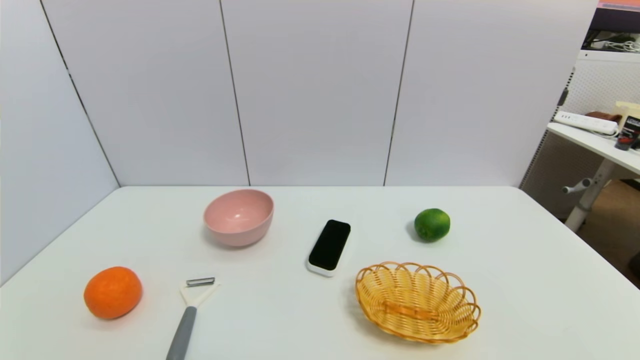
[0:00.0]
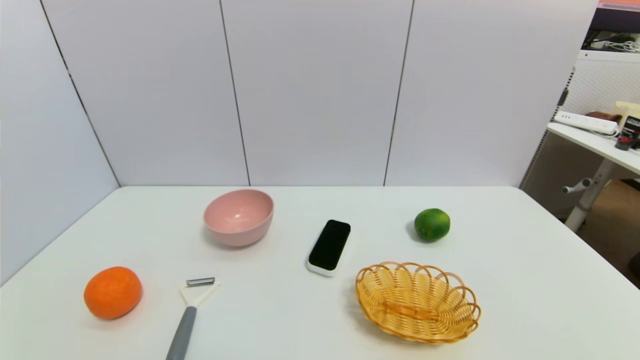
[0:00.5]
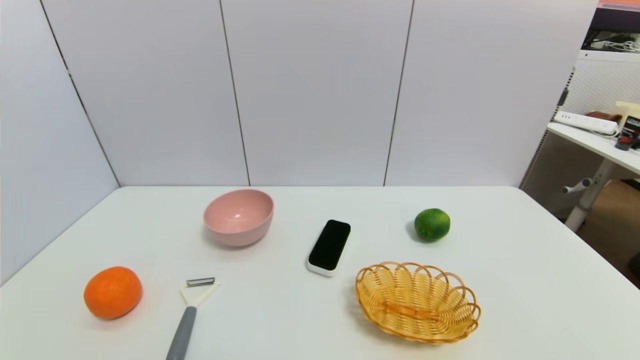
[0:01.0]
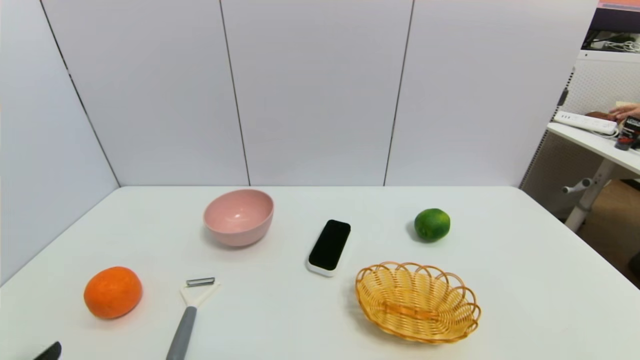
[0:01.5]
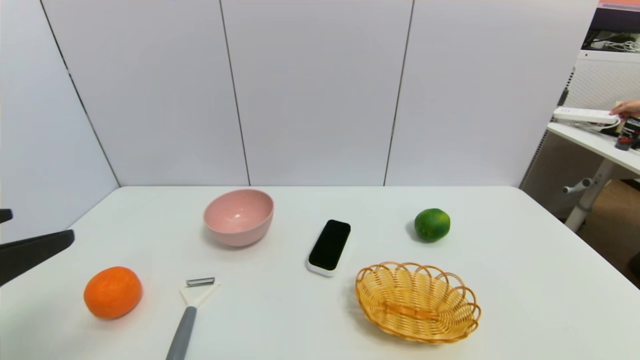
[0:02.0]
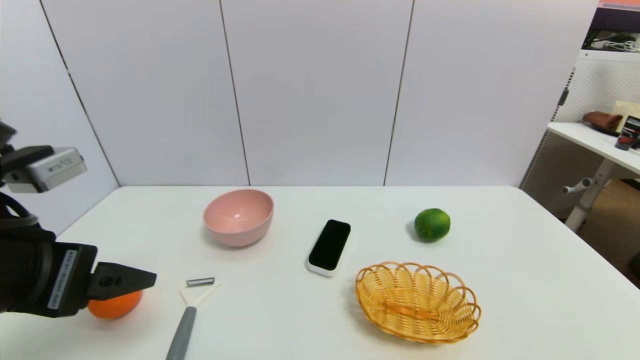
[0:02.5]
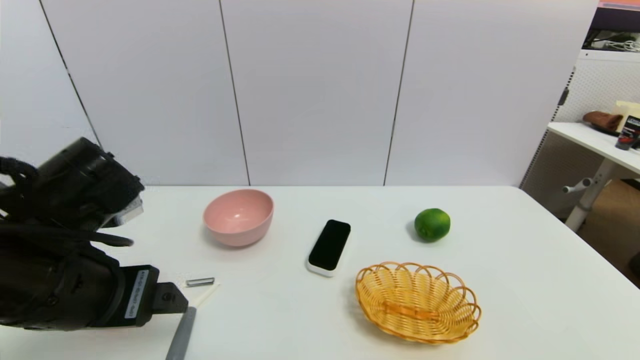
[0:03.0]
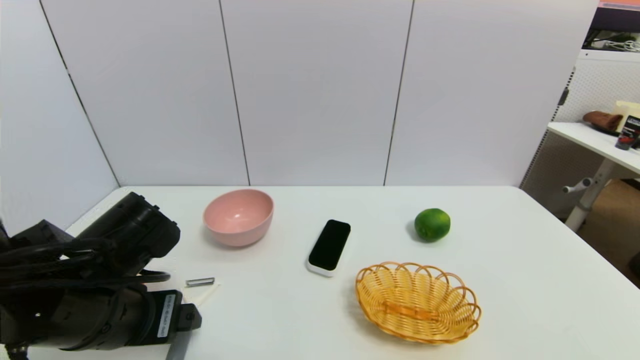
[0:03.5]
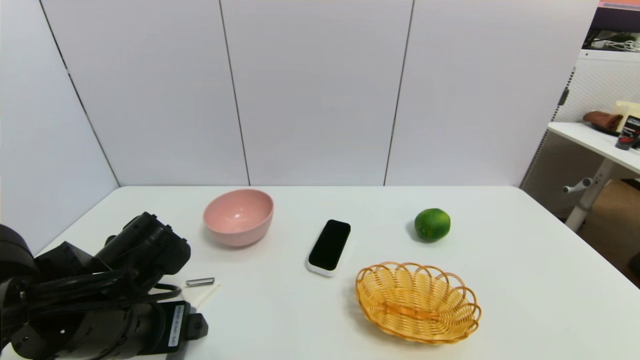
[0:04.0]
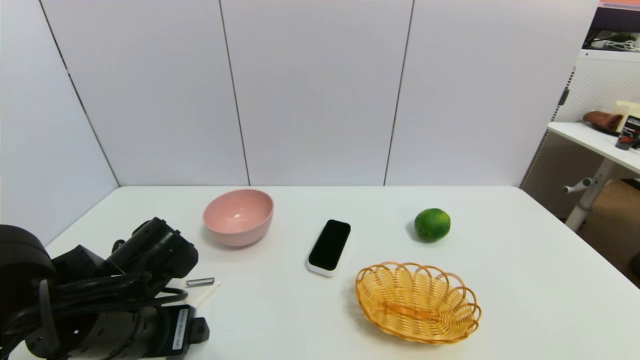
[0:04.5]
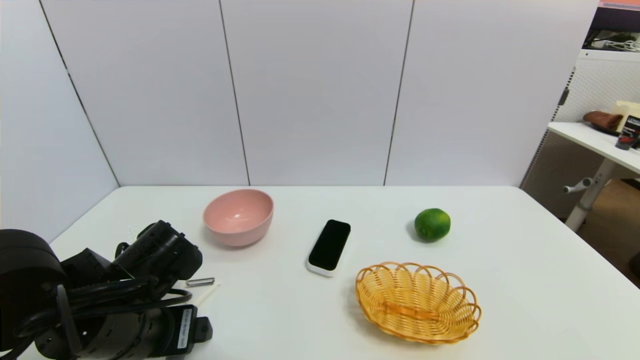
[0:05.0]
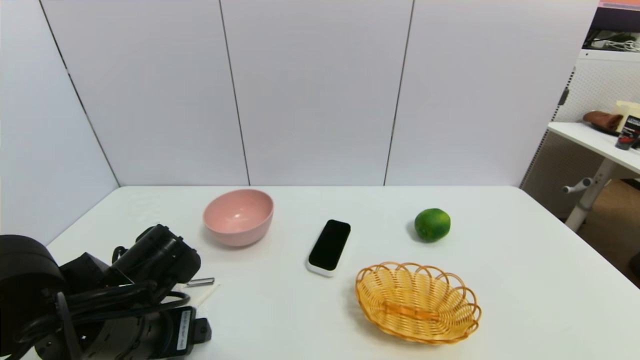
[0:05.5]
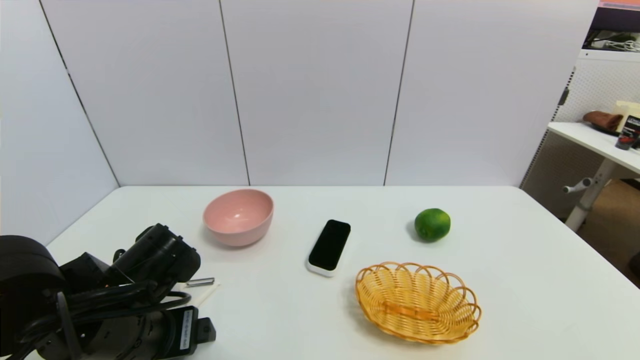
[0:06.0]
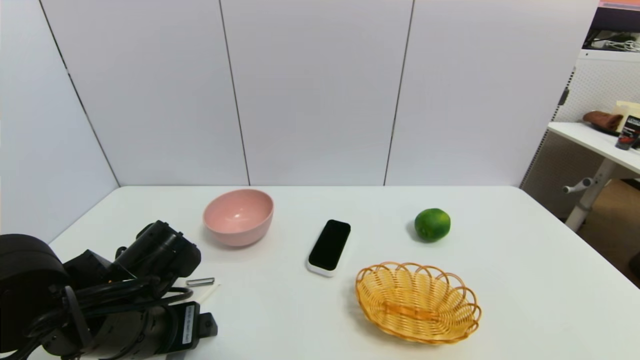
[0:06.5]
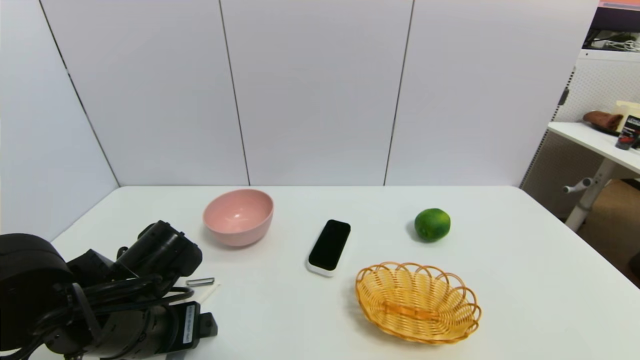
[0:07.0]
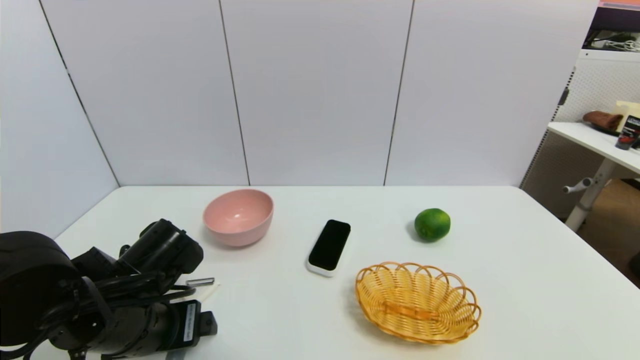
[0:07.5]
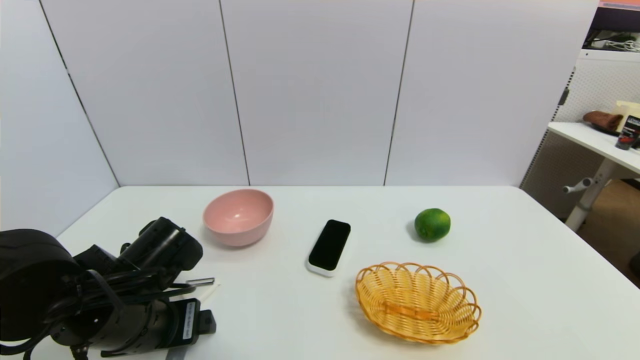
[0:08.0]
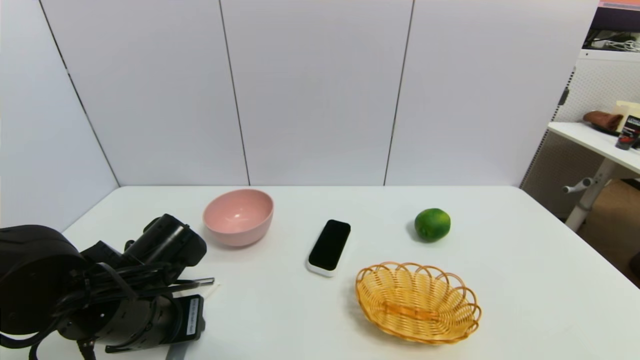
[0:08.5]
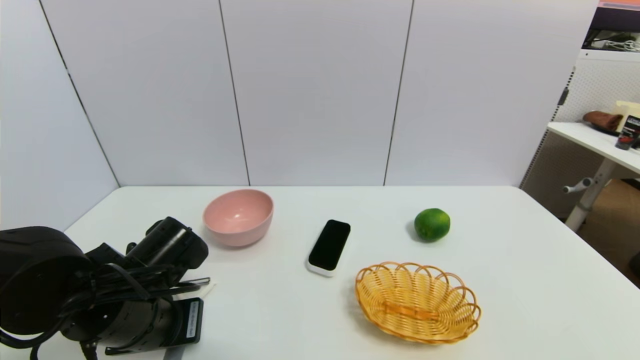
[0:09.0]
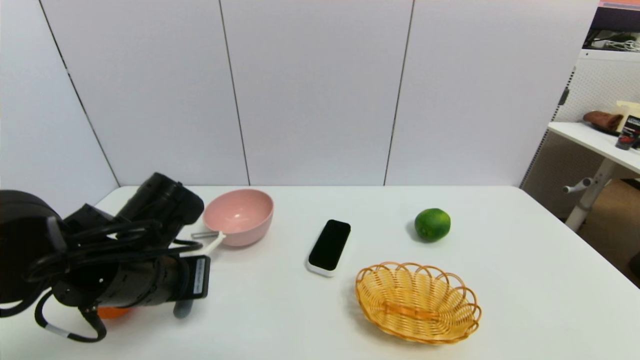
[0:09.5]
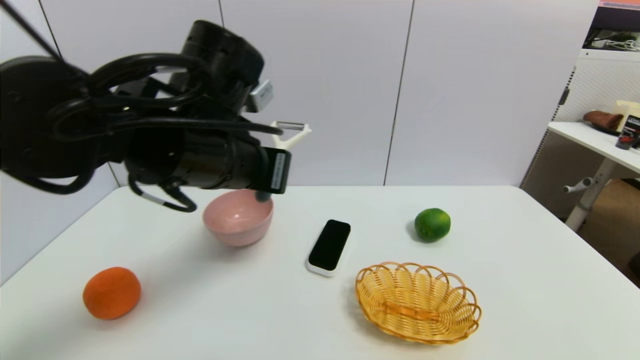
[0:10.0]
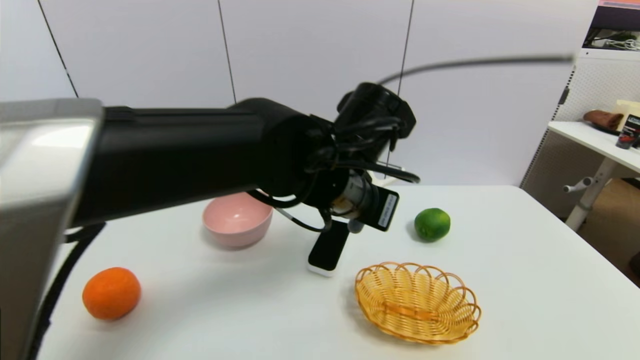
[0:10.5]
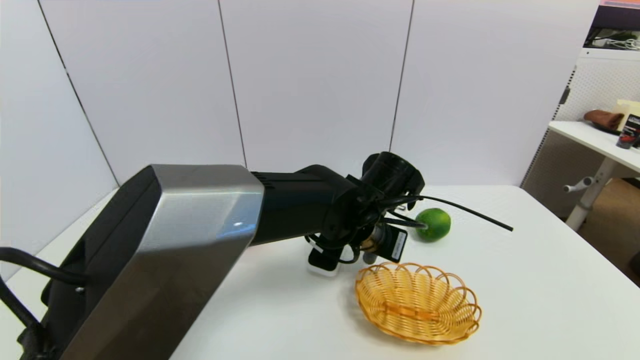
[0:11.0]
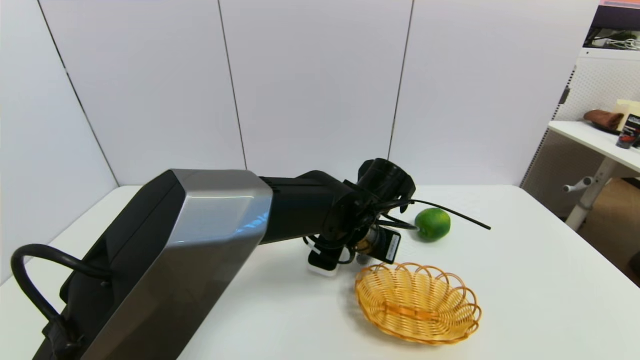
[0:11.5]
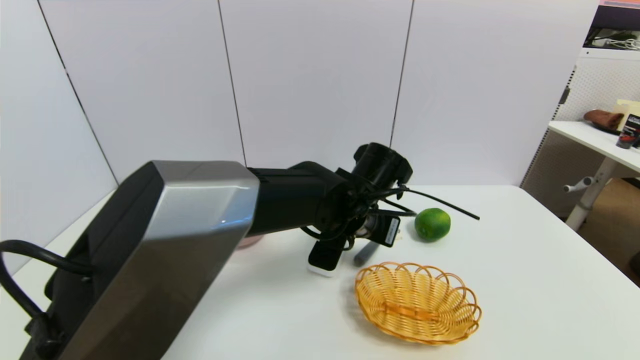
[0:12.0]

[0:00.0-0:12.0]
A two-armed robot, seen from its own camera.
Step, 0:01.5 to 0:09.0: Grasp the peeler with left gripper.
Step, 0:09.5 to 0:11.5: Place the peeler on the table with left gripper.
0:00.0 to 0:02.0: The left gripper moves upward and forward, about 20 cm.
0:02.0 to 0:04.0: The left gripper shifts about 20 cm downward, forward and to the right.
0:04.0 to 0:08.0: The grippers make only small movements.
0:08.0 to 0:10.0: The left gripper travels upward and to the right by about 20 cm, and closes.
0:10.0 to 0:12.0: The left gripper goes about 20 cm to the right, downward and forward, and opens its fingers.

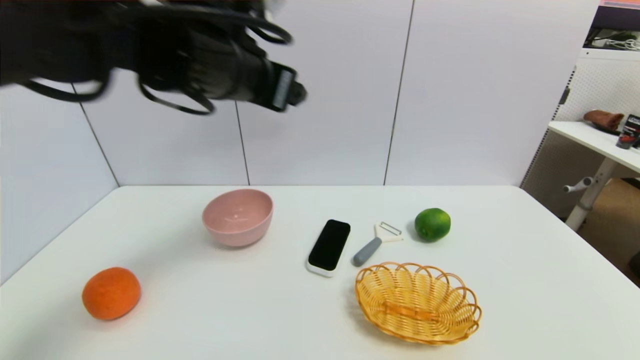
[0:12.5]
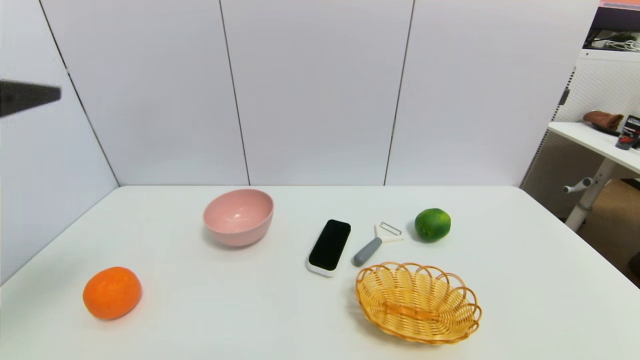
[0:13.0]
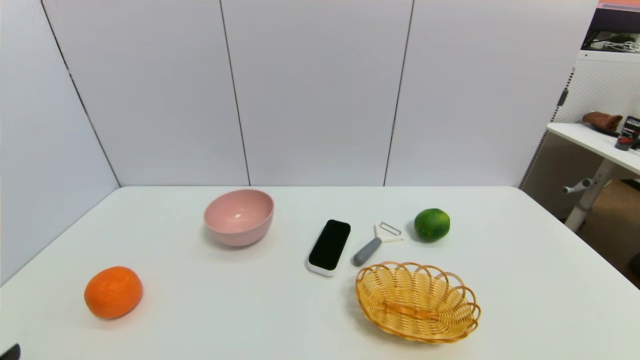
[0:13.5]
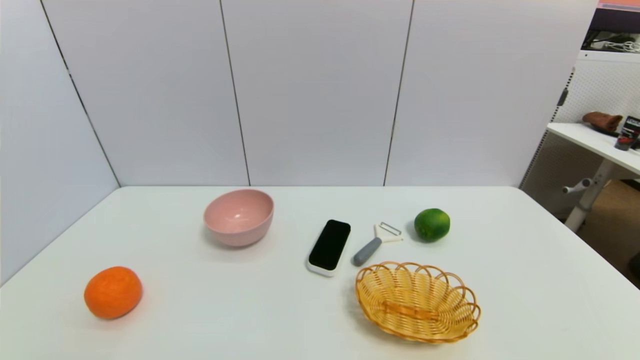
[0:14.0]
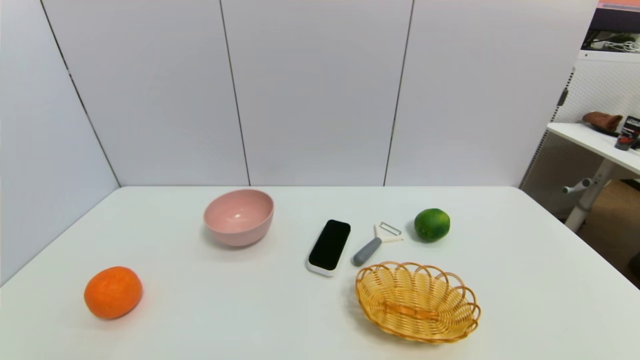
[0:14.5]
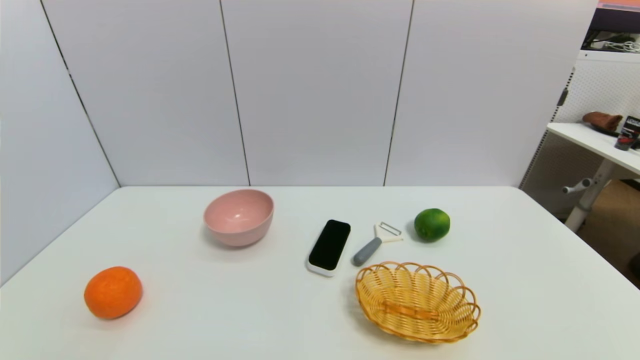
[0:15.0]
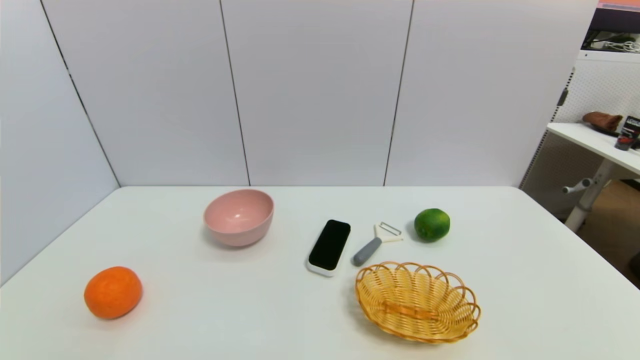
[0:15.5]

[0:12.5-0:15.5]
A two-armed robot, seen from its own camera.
0:12.5 to 0:14.0: The left gripper moves backward, downward and to the left, approximately 40 cm.

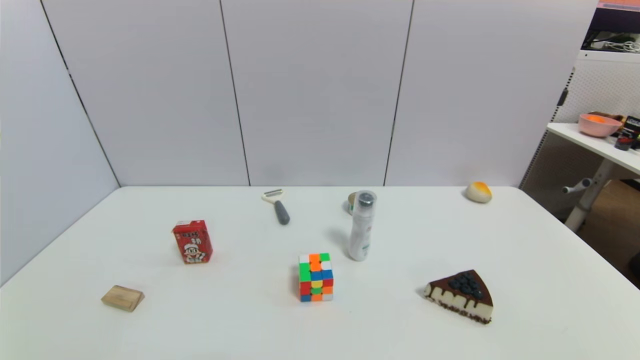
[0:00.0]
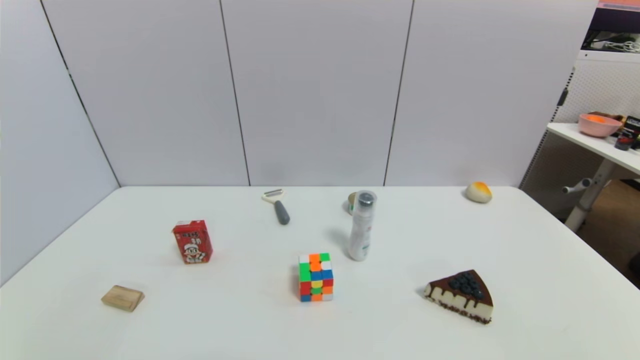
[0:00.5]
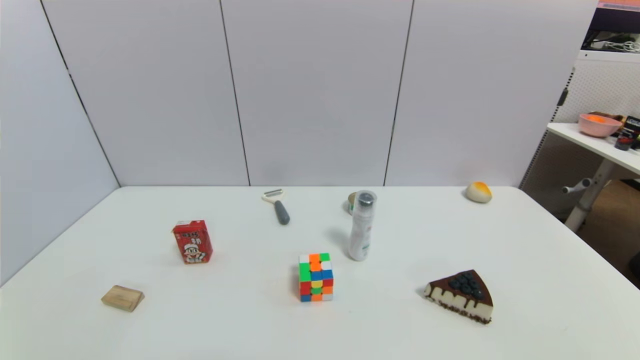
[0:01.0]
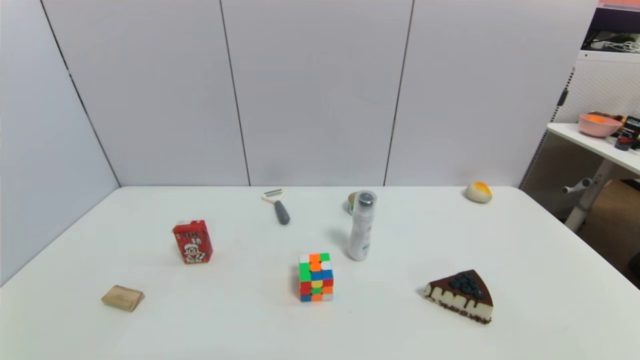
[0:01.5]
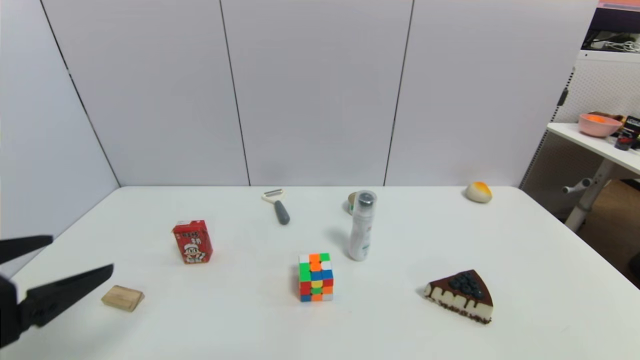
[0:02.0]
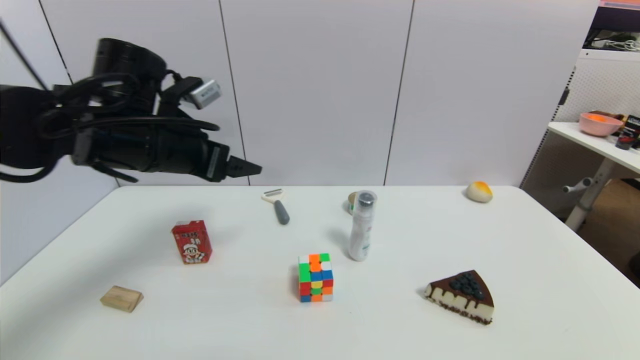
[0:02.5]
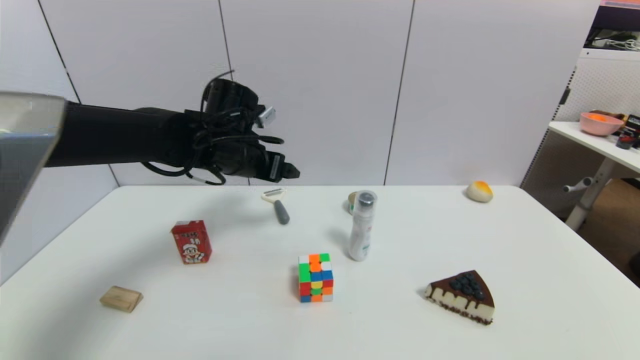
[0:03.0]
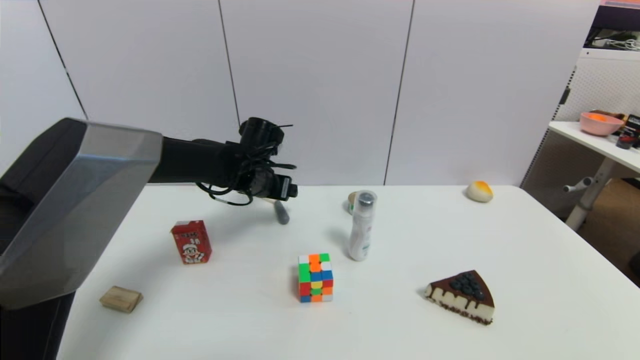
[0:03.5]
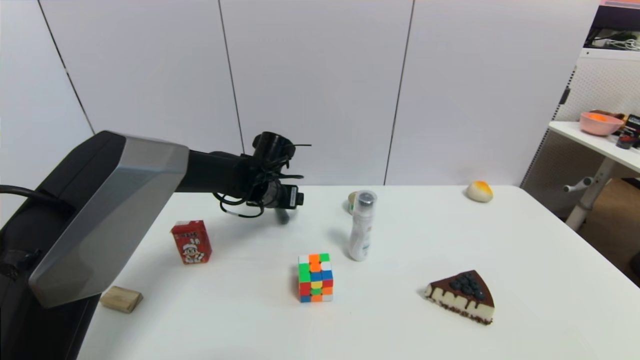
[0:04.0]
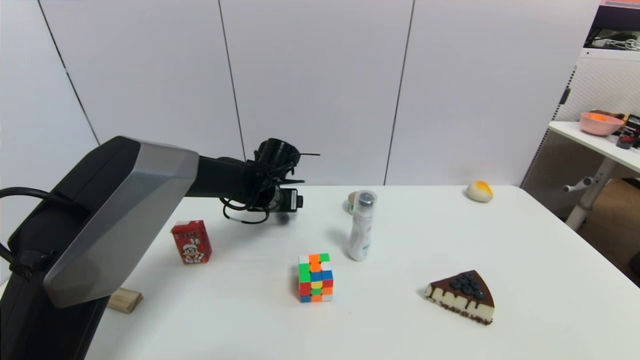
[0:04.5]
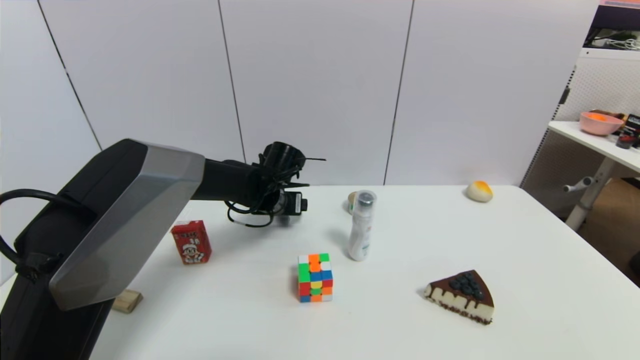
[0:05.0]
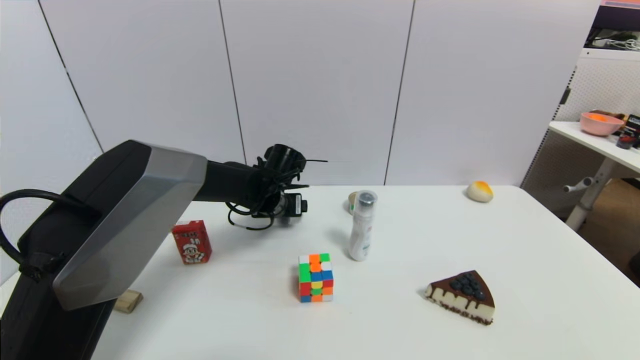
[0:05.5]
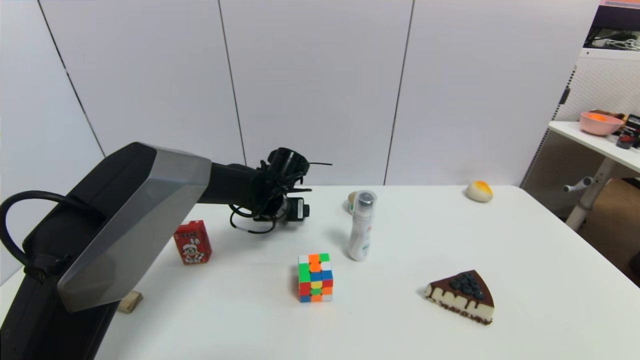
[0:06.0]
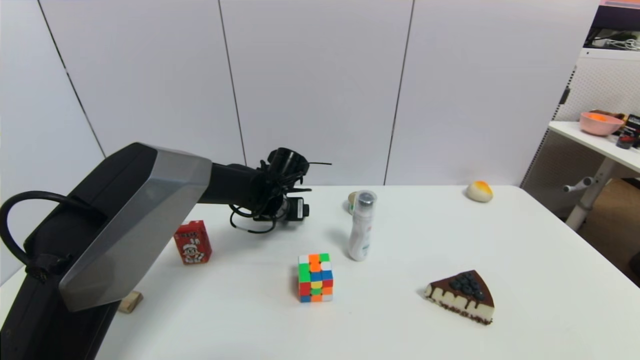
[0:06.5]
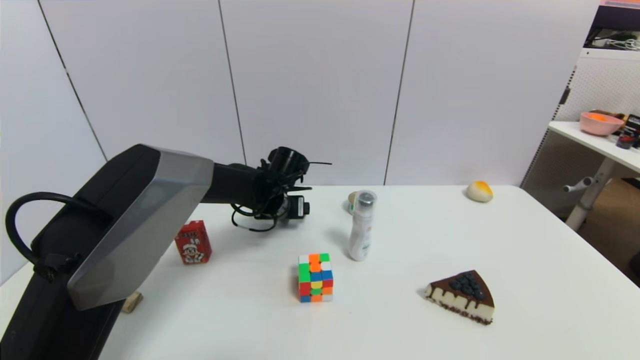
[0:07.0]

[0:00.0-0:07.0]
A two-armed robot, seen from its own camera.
0:00.0 to 0:02.0: The left gripper travels upward and forward by about 20 cm.
0:02.0 to 0:03.5: The left gripper heads forward and to the right, covering roughly 35 cm.
0:03.5 to 0:05.0: The left gripper shifts by some 5 cm.
0:05.0 to 0:07.0: Both grippers stay about where they are.
